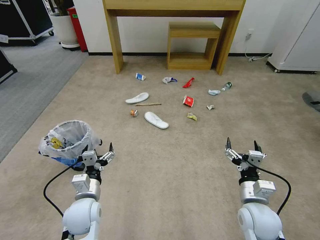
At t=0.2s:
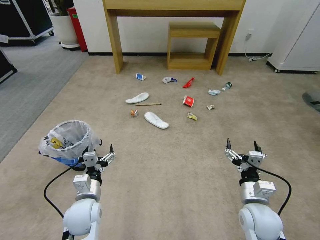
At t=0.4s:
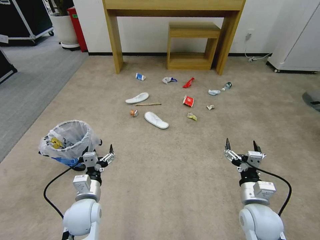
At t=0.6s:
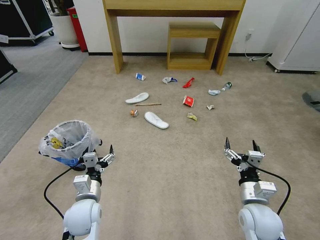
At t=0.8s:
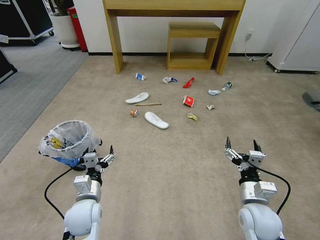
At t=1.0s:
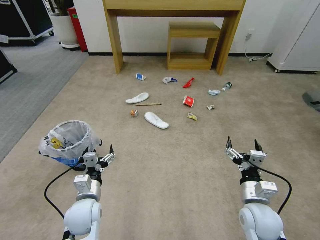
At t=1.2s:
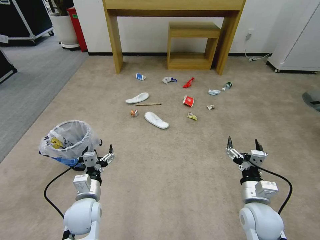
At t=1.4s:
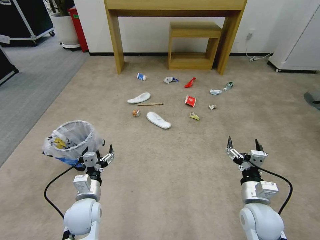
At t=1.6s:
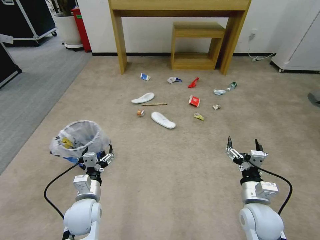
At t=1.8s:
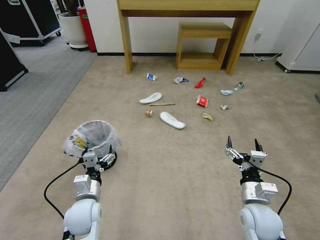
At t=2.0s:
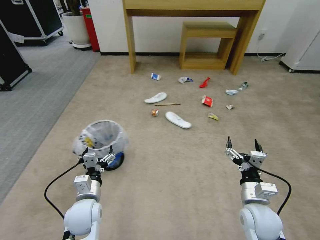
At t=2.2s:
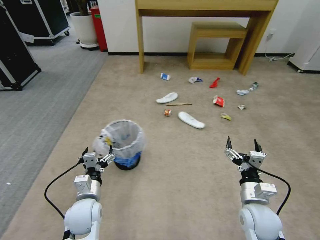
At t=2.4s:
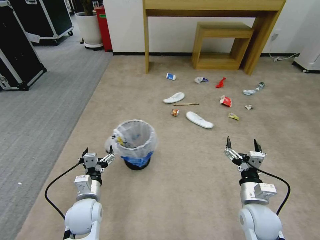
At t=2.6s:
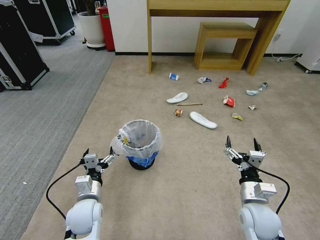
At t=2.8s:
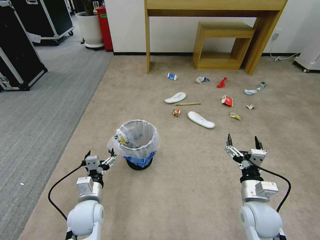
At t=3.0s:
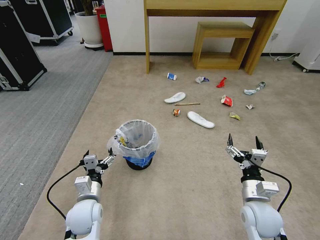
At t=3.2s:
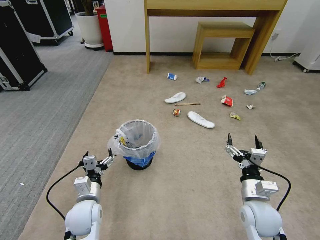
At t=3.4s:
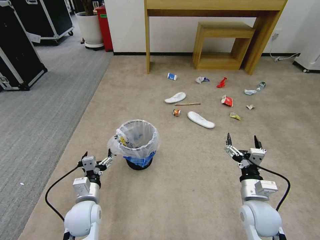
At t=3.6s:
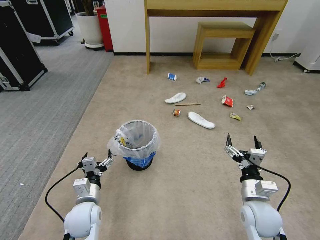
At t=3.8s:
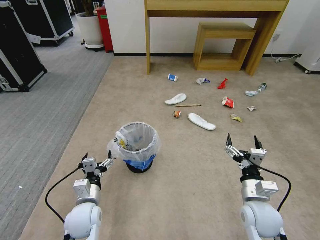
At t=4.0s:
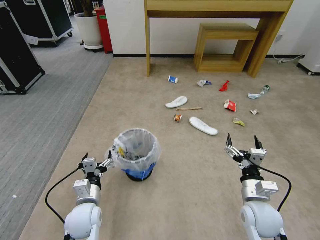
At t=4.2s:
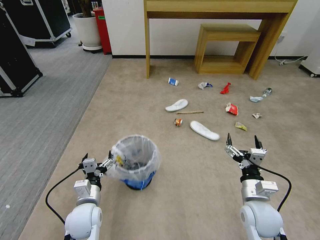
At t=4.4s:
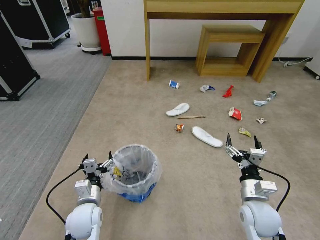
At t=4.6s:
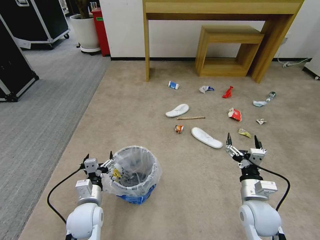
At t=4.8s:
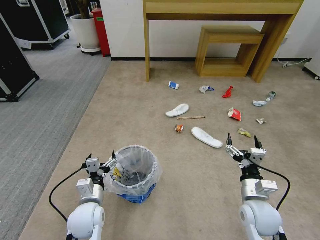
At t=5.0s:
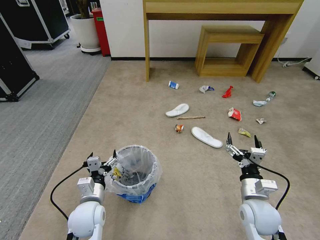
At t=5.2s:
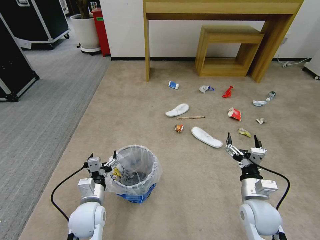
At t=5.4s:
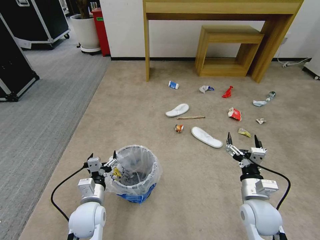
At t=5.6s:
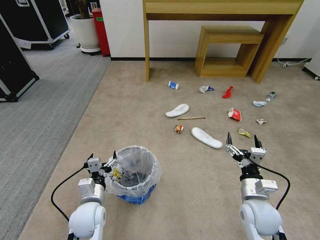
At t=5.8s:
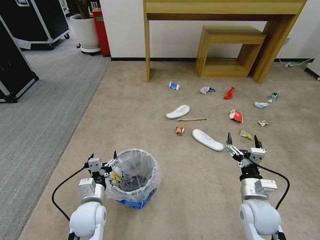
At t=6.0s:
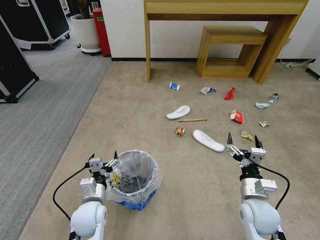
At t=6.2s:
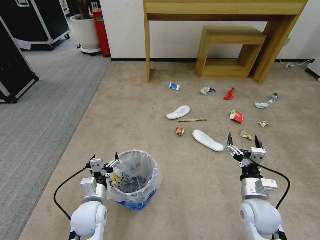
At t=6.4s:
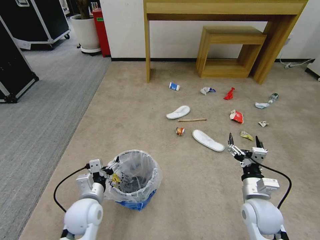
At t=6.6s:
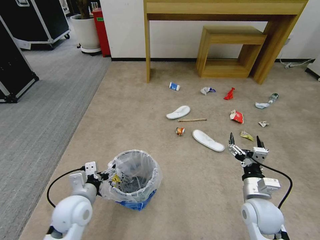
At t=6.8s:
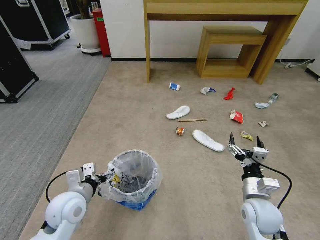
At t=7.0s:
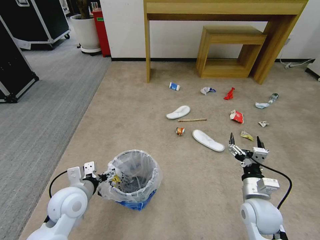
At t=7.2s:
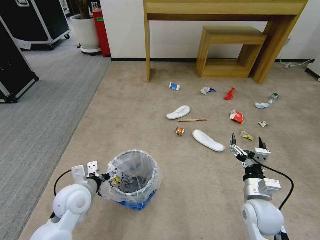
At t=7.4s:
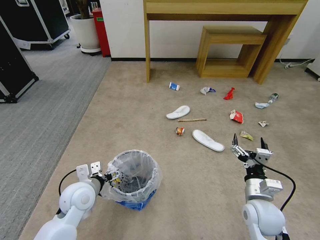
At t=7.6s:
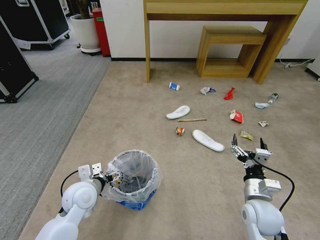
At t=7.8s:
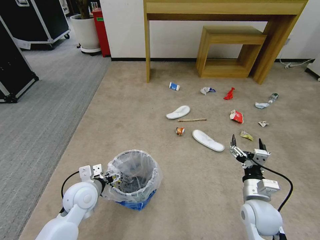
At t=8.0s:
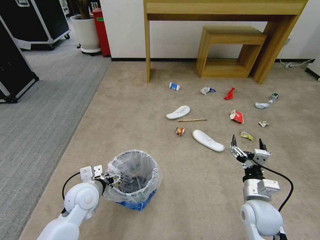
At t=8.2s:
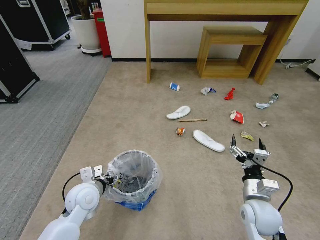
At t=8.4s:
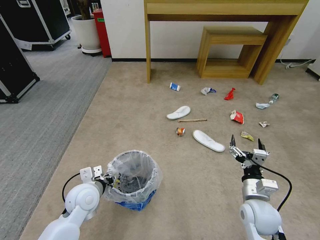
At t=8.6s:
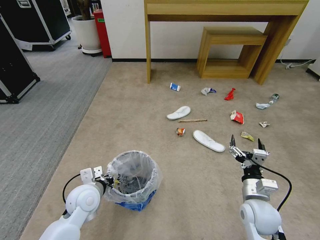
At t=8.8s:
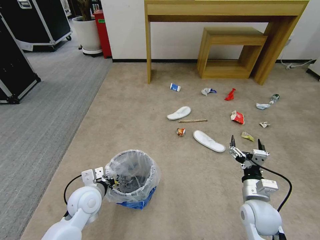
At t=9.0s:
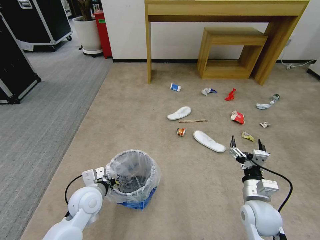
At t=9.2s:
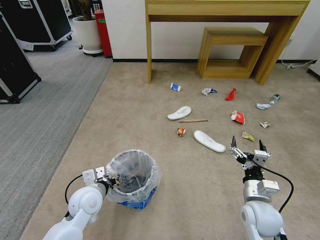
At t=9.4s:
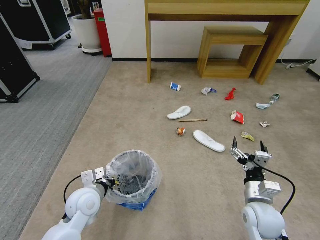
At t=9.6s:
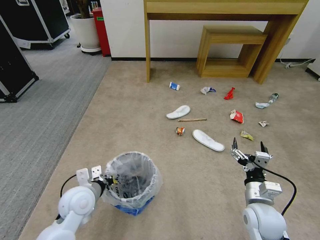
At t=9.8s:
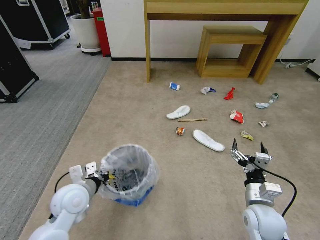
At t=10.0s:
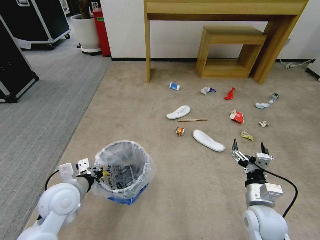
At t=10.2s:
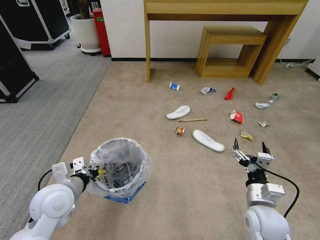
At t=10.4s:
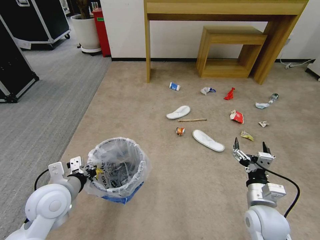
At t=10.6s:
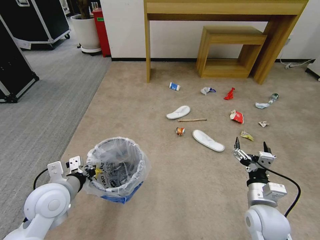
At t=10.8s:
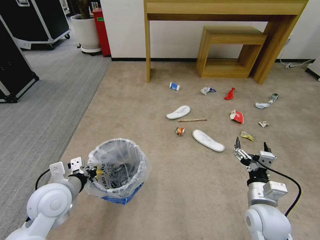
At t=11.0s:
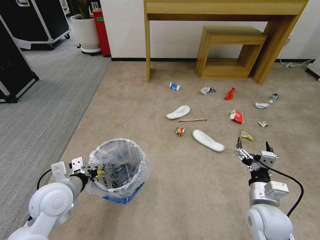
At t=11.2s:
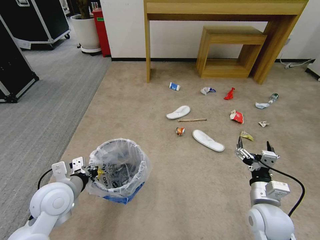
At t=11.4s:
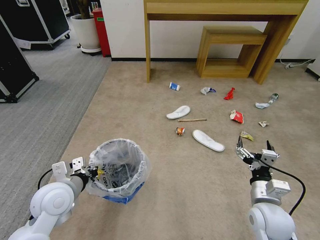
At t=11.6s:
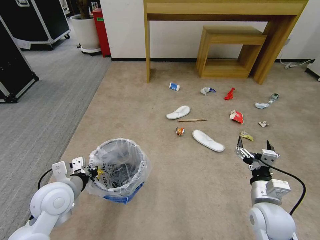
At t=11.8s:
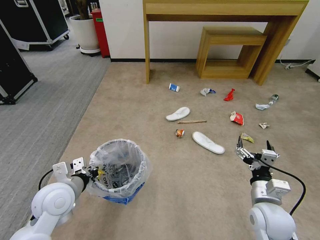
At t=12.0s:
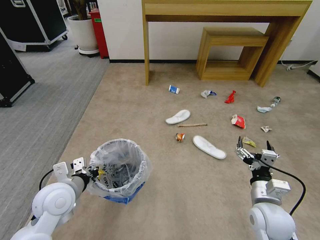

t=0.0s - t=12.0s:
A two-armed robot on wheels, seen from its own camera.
Task of the whole recording: Pick up the trash bin and place the garbage on the floor into it.
t=4.4s - t=6.0s: The grippers move only a little.
t=6.0s - t=7.6s: The left gripper moves some 5 cm.
t=7.6s - t=9.0s: The left gripper closes up.
t=9.0s - t=10.4s: The left gripper shifts approximately 10 cm upward and to the left.
t=10.4s - t=12.0s: The grippers stay close to where they were, moving slightly.

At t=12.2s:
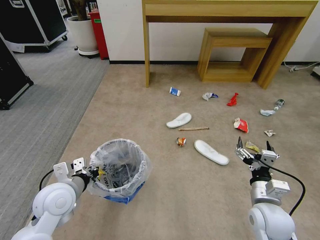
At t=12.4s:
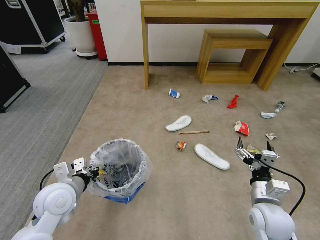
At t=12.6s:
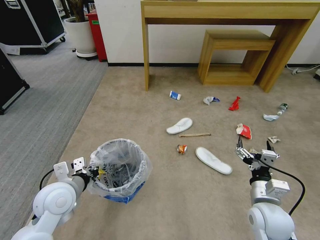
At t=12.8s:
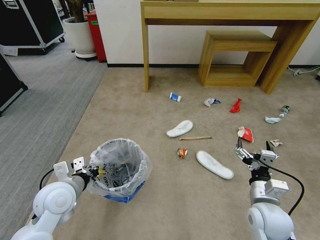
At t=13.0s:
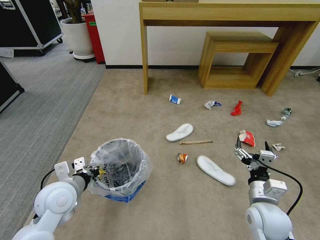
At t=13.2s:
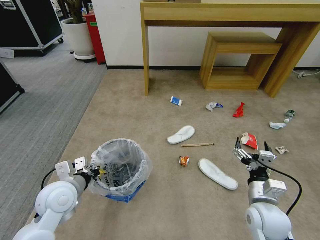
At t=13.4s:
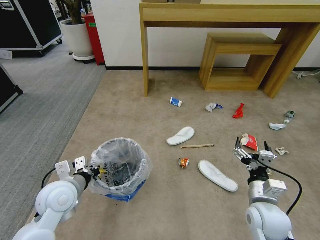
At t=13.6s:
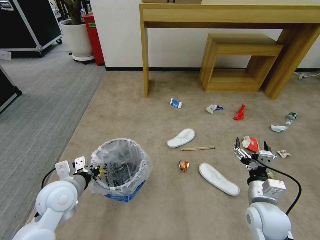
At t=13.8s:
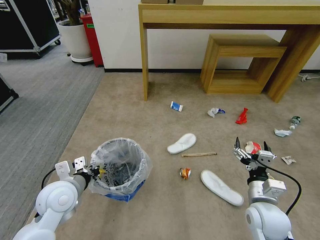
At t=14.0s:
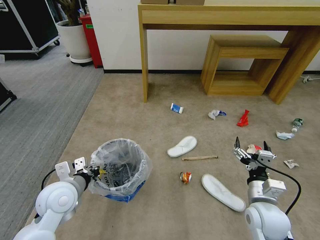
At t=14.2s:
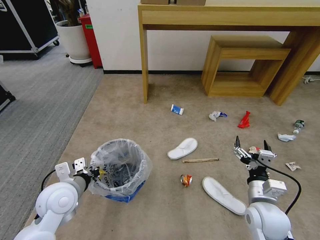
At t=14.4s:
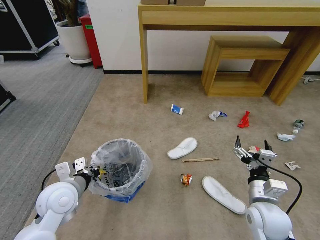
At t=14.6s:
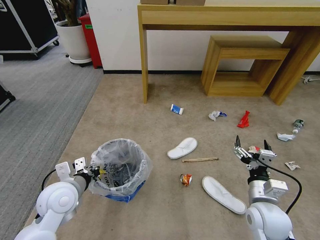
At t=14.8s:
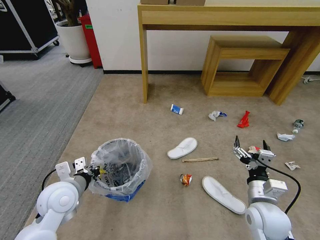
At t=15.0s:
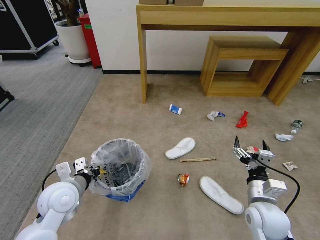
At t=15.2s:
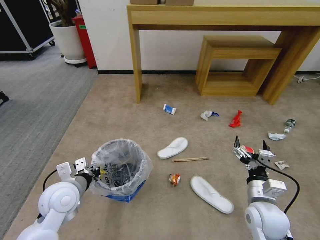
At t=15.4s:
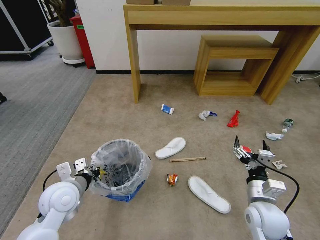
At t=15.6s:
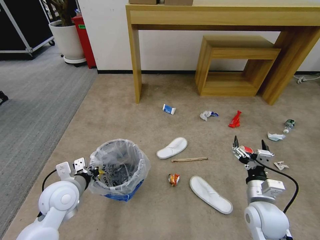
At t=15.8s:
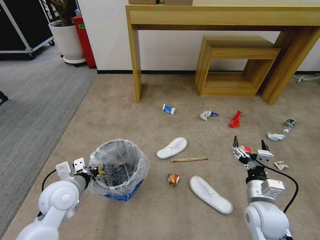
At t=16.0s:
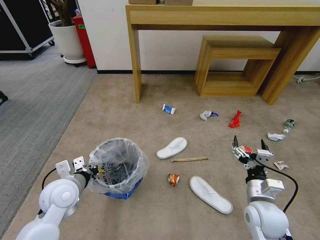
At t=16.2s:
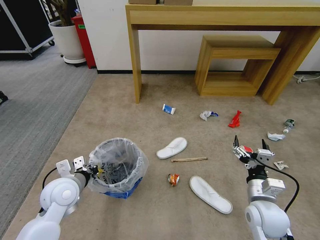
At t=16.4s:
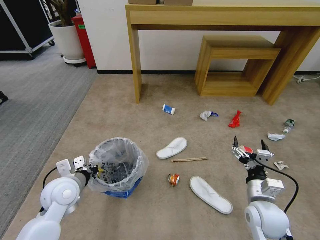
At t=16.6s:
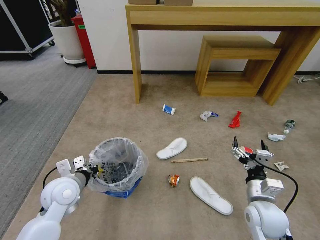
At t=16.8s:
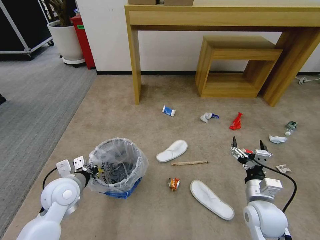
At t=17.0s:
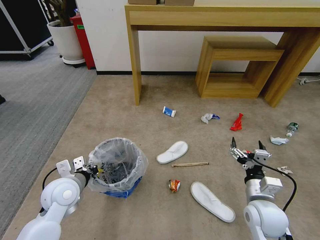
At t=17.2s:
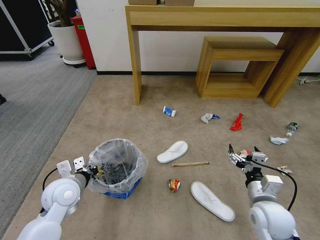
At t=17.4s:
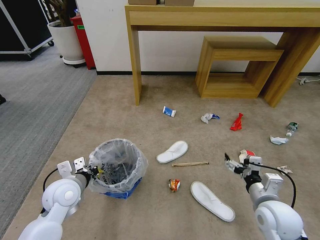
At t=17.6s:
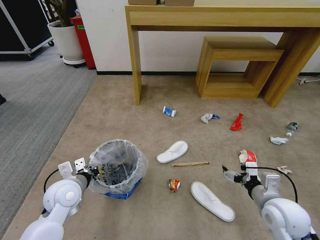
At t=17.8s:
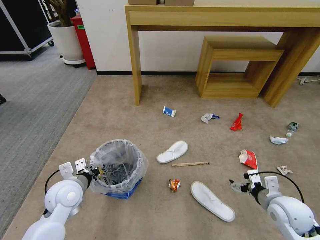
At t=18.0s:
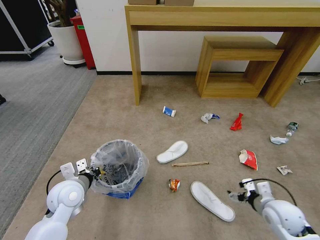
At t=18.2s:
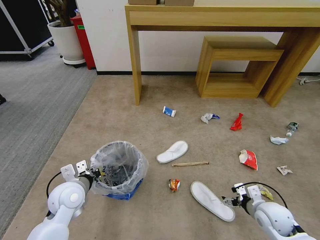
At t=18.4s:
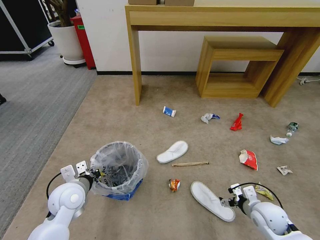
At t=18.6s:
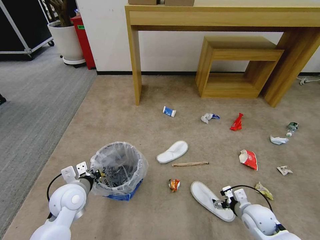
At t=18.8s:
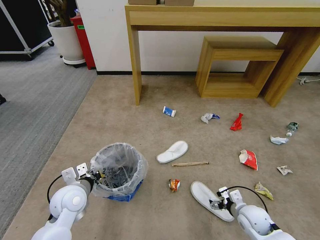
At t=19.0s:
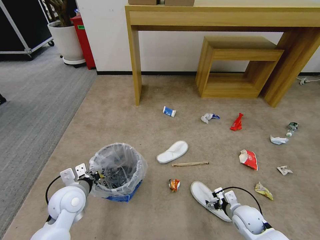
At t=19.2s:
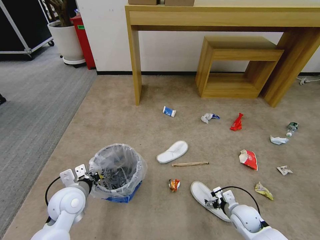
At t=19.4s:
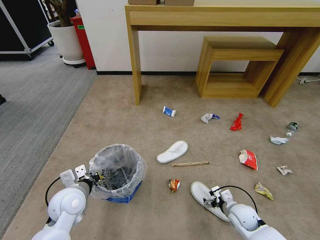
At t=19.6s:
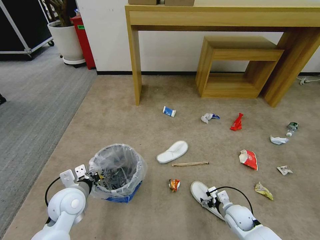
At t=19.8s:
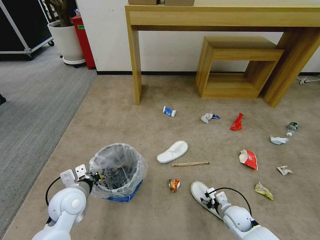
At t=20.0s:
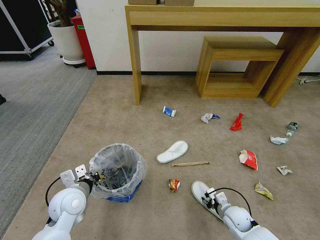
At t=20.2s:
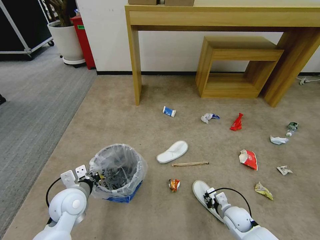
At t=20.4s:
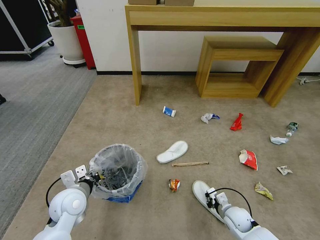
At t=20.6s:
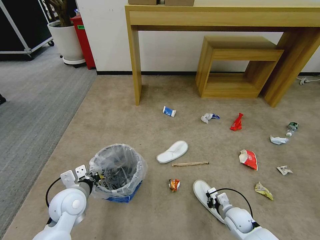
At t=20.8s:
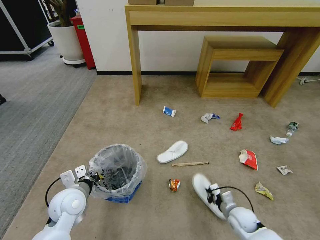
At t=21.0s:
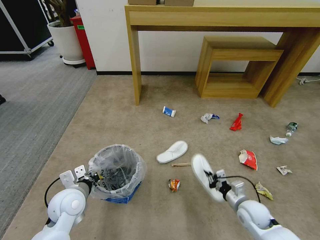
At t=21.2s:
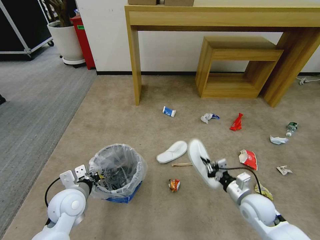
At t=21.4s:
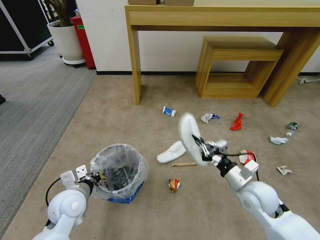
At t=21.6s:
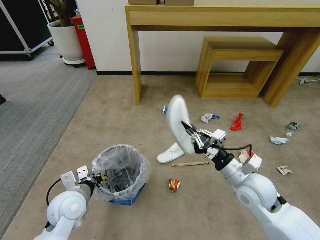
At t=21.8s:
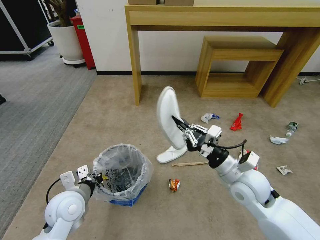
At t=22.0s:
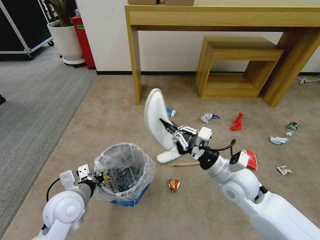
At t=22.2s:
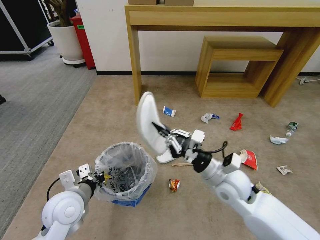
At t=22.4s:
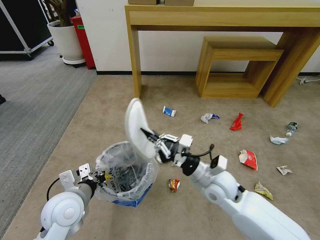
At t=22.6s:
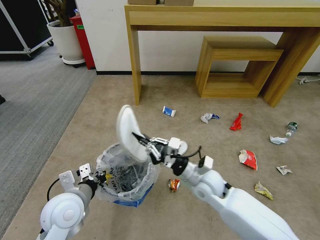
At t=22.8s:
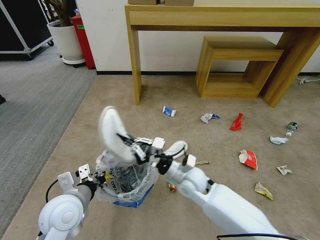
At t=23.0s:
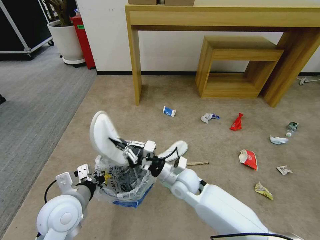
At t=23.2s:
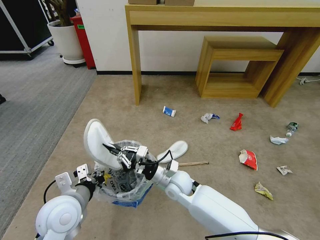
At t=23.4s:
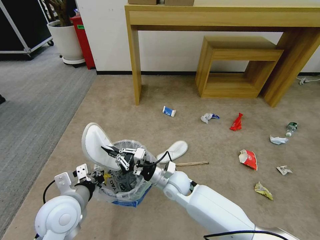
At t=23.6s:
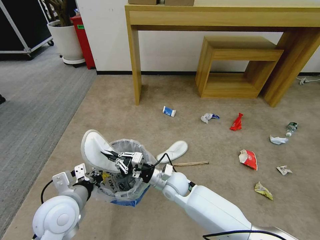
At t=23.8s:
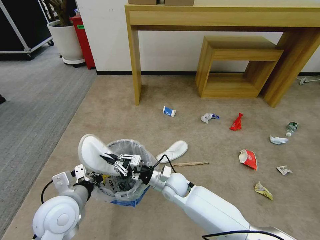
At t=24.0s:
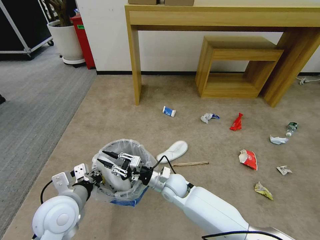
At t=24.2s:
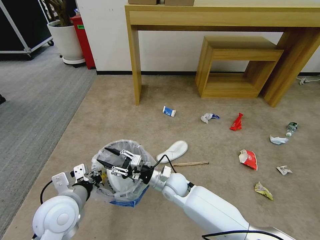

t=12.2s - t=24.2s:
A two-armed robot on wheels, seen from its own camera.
Task of the whole recording: Pick up the trash bin and place the garbage on the floor into it.
t=13.8s - t=15.2s: Both grippers stay put.
t=15.2s - t=16.6s: The grippers move only a little.
t=16.6s - t=18.2s: The right gripper is displaced to the right and downward by roughly 10 cm.
t=18.2s - t=19.8s: The right gripper goes roughly 15 cm downward and to the left.
t=19.8s - t=21.2s: The right gripper moves upward, some 15 cm, and closes its fingers.
t=21.2s - t=22.6s: The right gripper shifts roughly 15 cm to the left. The left gripper heads upward, covering some 5 cm.
t=22.6s - t=24.2s: The right gripper travels to the left and downward by about 10 cm, and opens up.
